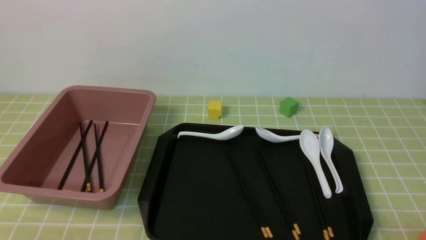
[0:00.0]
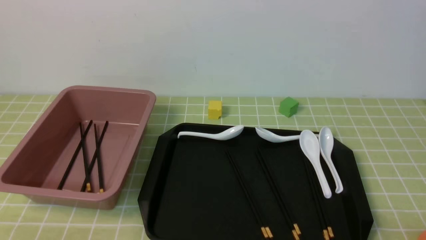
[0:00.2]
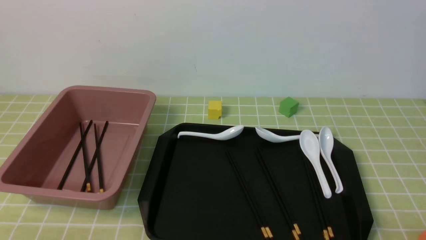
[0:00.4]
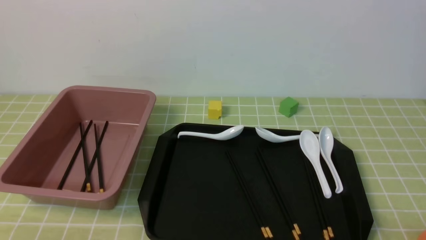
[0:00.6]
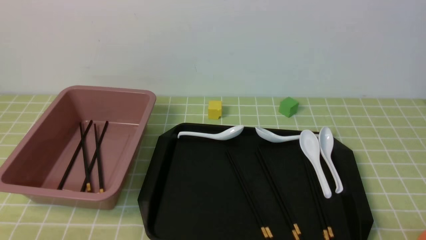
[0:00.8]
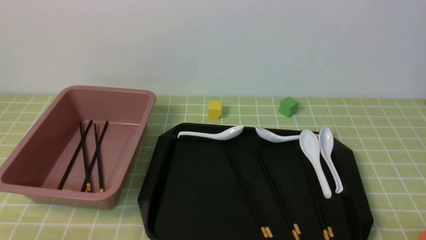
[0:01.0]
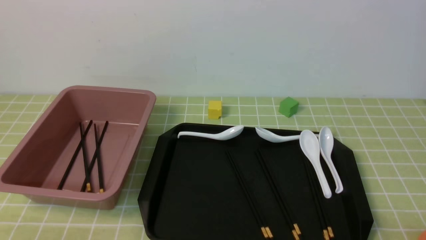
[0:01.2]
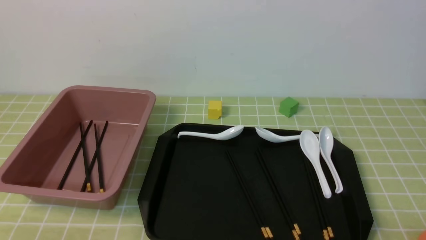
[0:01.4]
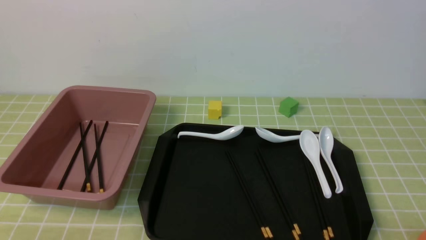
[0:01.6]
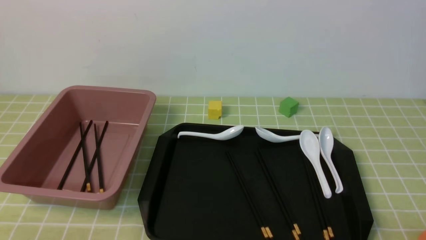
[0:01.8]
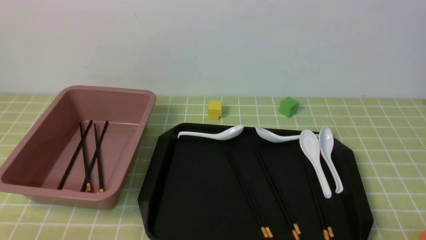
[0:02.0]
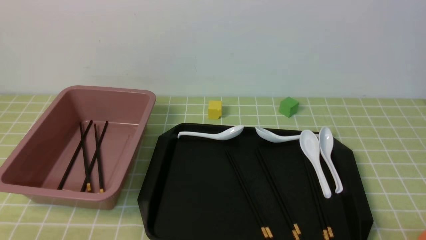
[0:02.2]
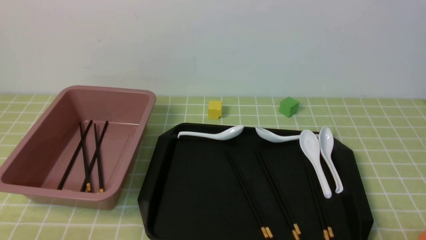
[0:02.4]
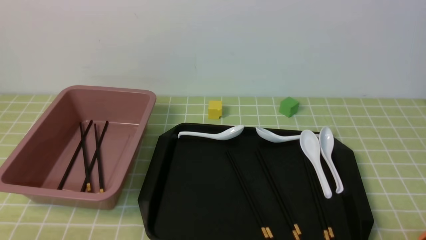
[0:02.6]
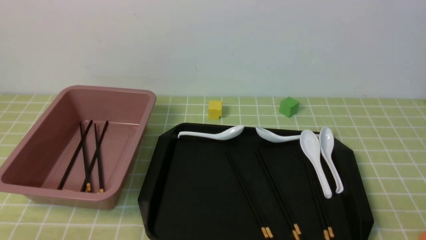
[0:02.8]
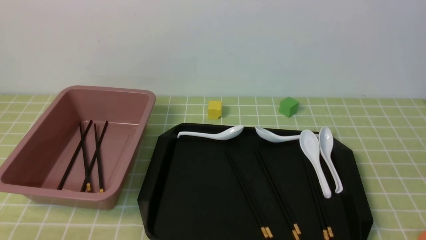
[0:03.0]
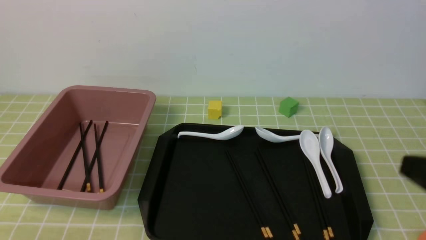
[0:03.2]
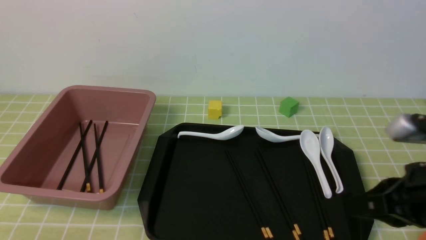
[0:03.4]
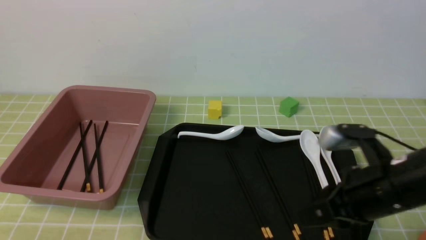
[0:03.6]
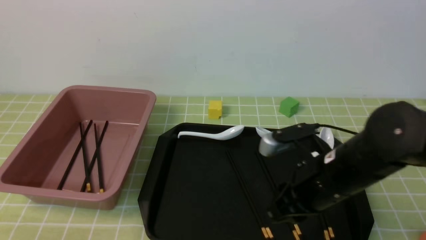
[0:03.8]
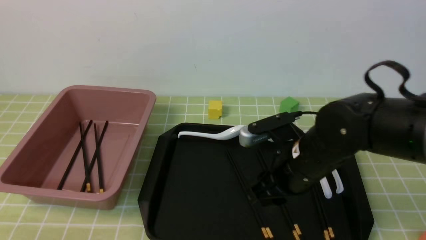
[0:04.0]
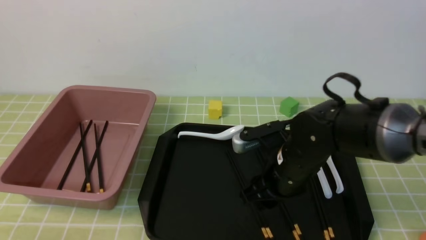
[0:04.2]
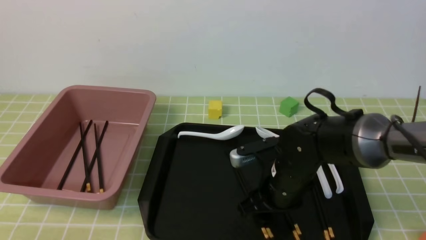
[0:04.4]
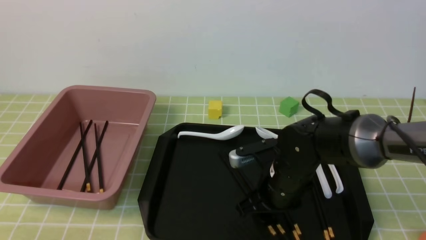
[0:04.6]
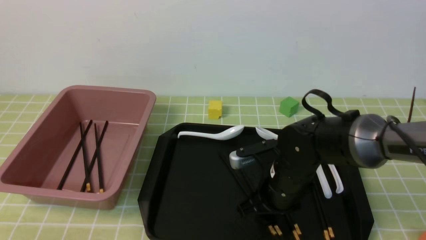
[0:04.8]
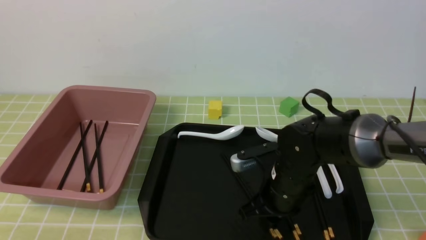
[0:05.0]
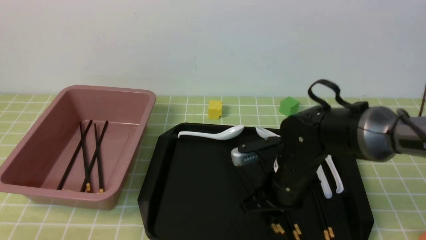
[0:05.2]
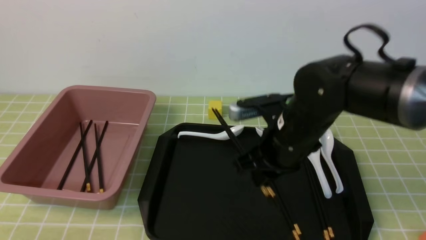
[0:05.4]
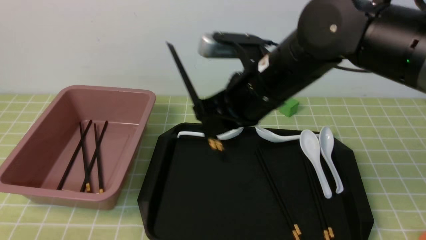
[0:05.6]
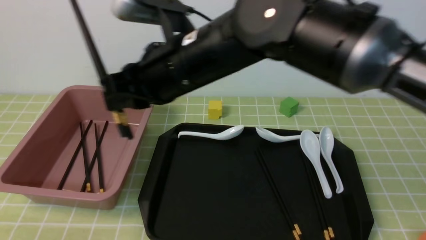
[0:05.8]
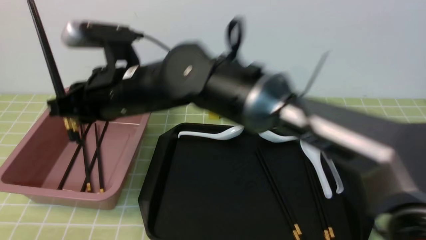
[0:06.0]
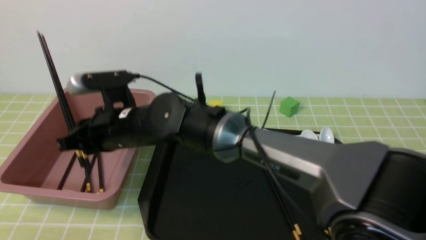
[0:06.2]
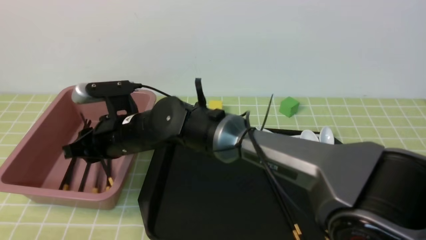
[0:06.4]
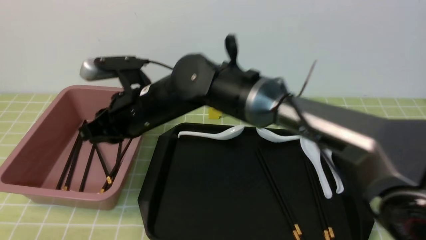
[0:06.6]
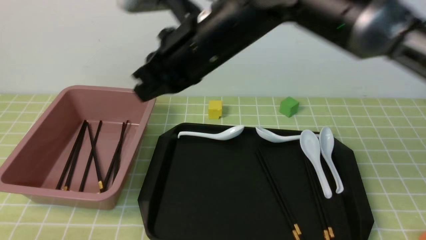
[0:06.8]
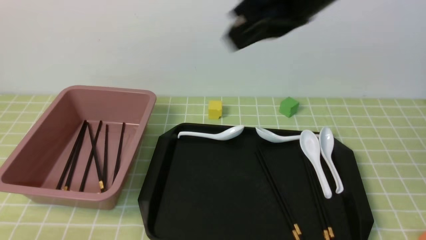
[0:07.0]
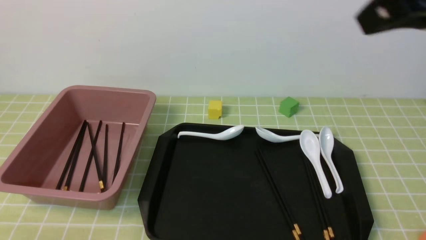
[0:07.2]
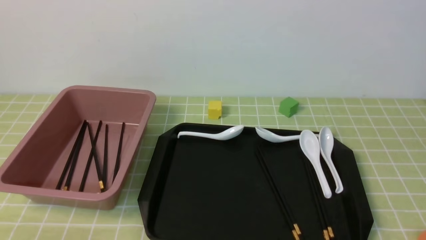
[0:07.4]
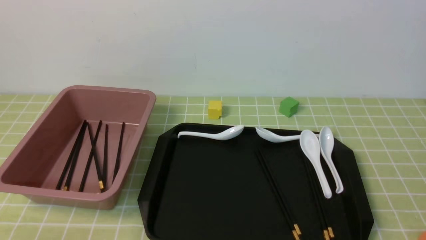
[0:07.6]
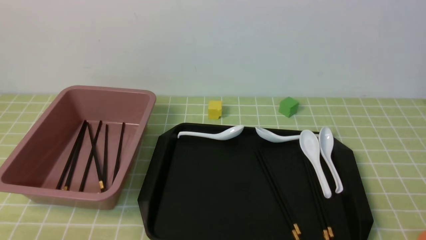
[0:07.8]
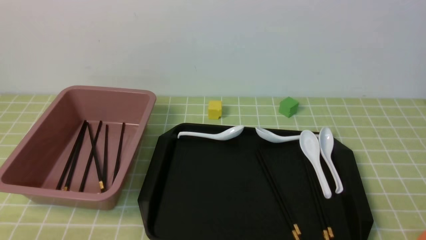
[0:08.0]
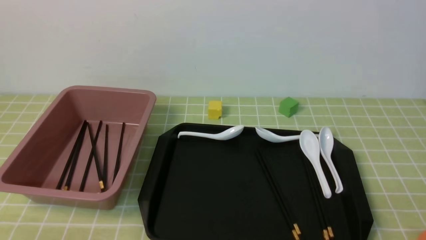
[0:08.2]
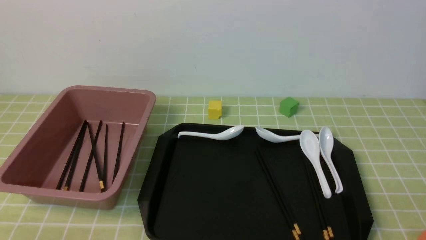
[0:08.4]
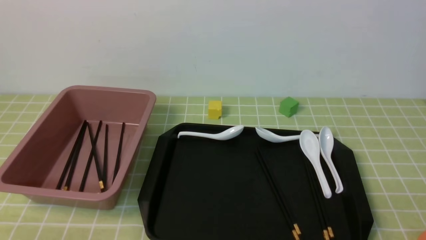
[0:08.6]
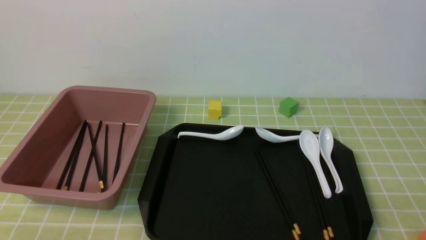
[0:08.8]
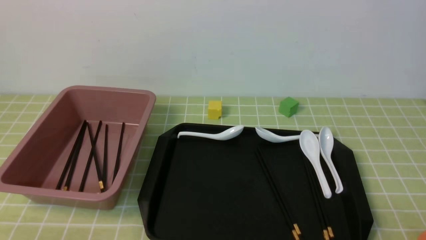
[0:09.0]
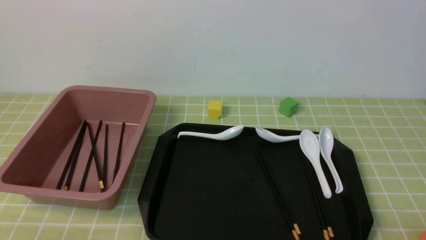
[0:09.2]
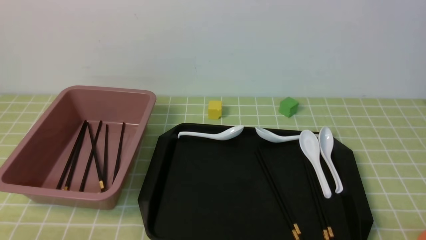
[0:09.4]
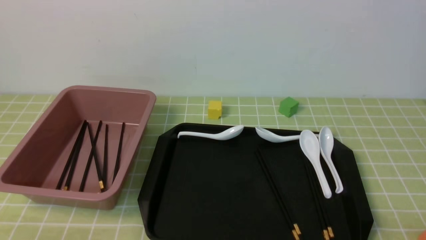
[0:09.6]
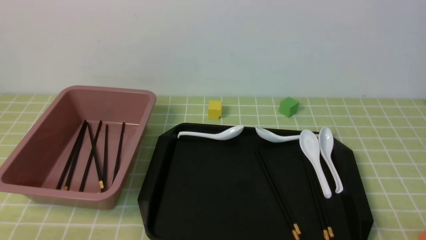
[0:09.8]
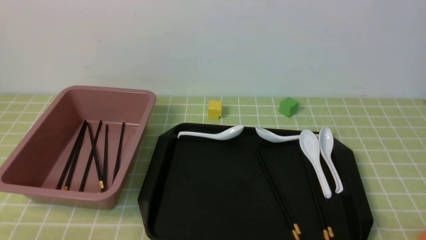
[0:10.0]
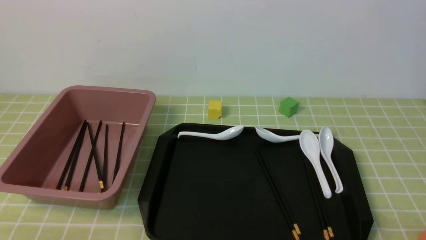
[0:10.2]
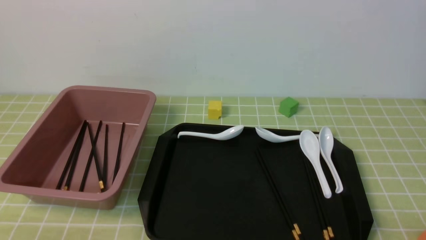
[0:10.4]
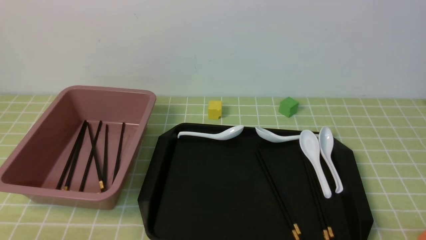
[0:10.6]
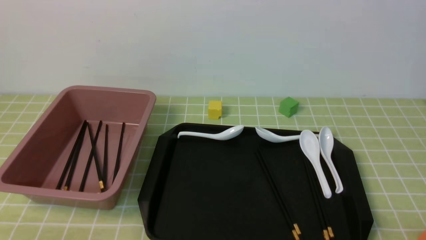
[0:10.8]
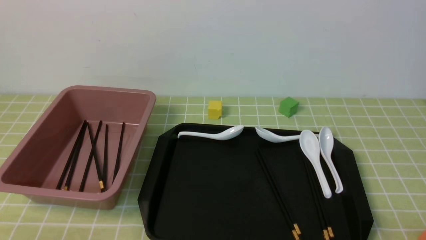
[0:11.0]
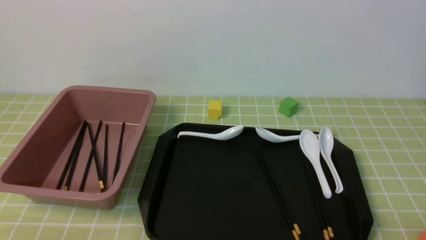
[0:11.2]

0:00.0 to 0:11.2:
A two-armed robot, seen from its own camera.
Step, 0:00.0 to 0:05.4: use the right arm to grab a pair of chopsticks.
Step, 0:05.6 to 0:06.6: use the right arm to put the chopsticks into the lunch box.
0:00.0 to 0:01.6: Neither gripper changes place.
0:01.6 to 0:03.2: The right gripper travels upward and forward by some 15 cm, and closes up.
0:03.2 to 0:04.8: The right gripper heads forward, to the left and downward, covering approximately 30 cm, and opens up.
0:04.8 to 0:06.4: The right gripper shifts about 25 cm to the left and upward.
0:06.4 to 0:08.0: The right gripper is displaced to the right and backward by approximately 50 cm, and closes.
0:09.6 to 0:11.2: Neither gripper changes place.

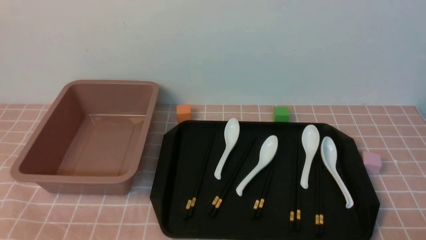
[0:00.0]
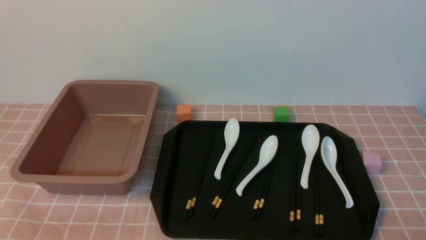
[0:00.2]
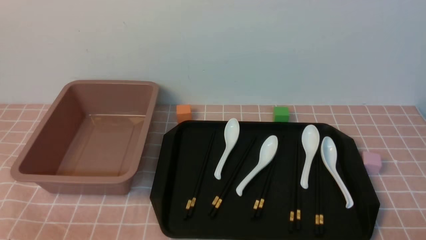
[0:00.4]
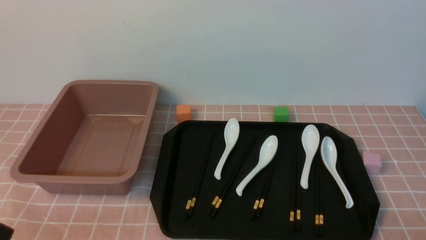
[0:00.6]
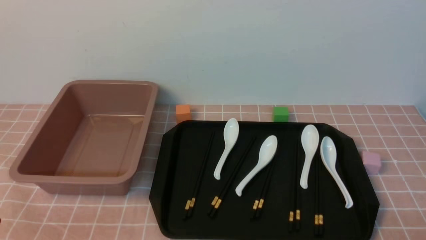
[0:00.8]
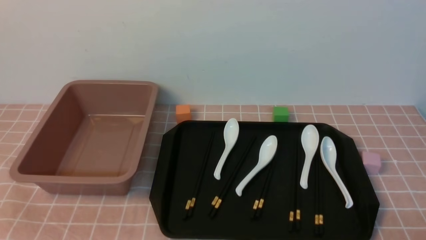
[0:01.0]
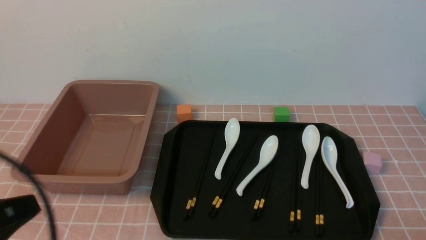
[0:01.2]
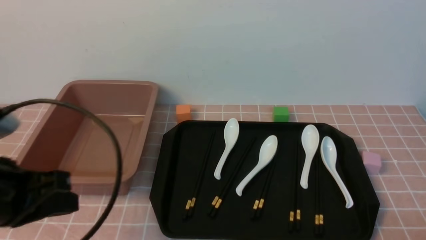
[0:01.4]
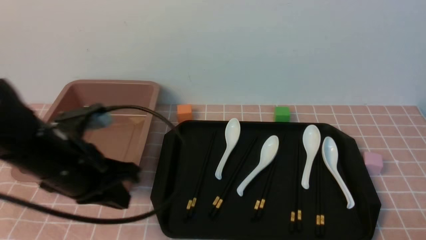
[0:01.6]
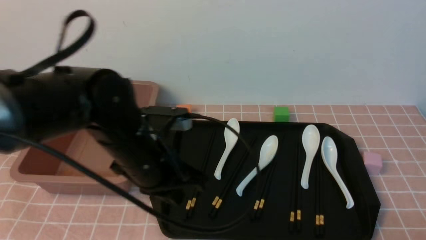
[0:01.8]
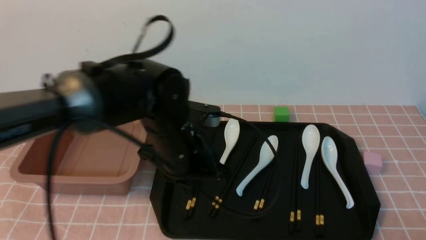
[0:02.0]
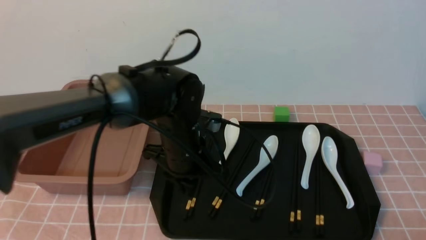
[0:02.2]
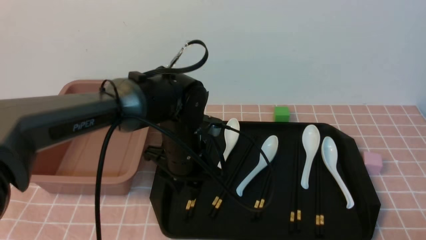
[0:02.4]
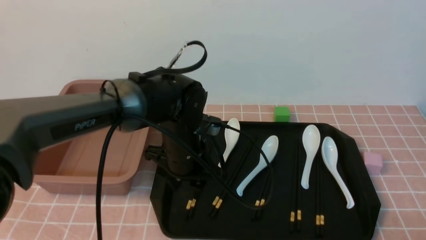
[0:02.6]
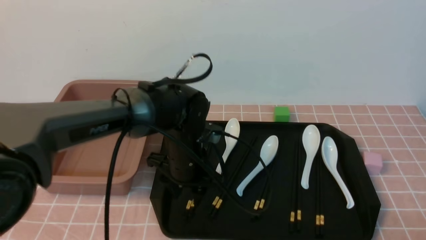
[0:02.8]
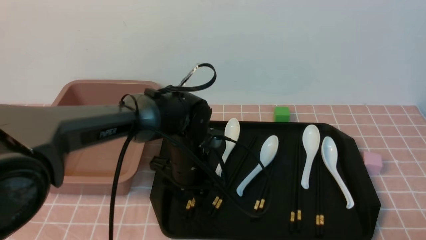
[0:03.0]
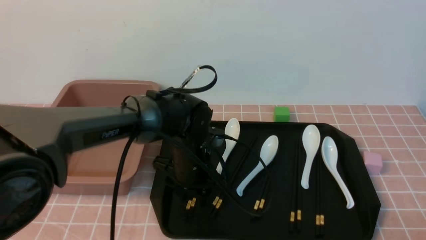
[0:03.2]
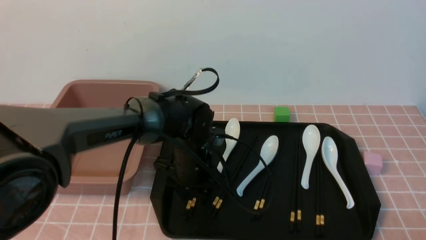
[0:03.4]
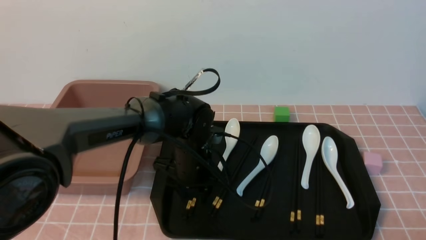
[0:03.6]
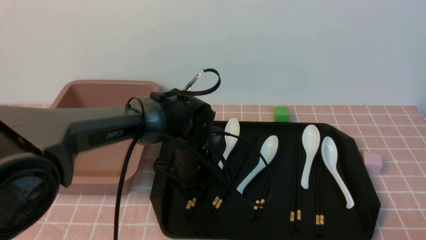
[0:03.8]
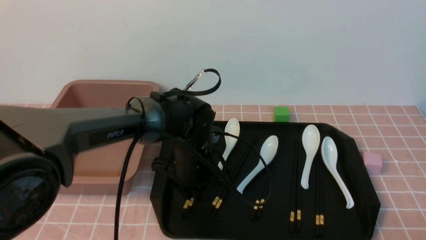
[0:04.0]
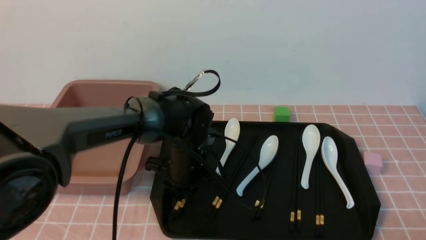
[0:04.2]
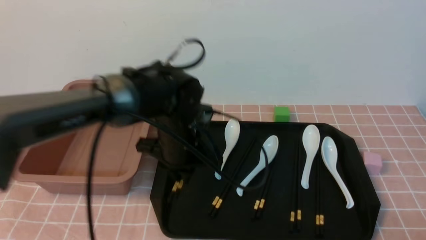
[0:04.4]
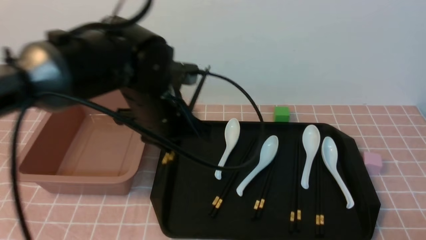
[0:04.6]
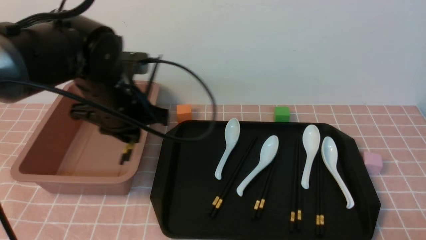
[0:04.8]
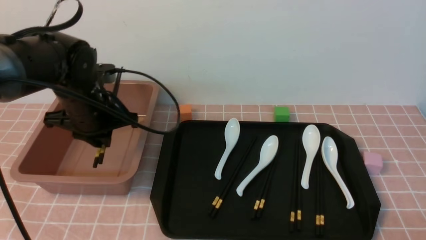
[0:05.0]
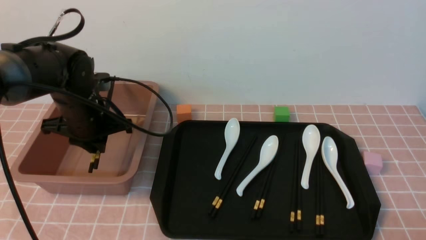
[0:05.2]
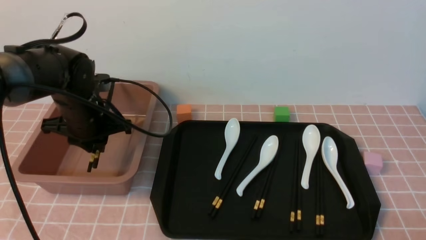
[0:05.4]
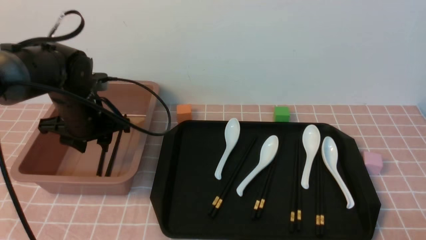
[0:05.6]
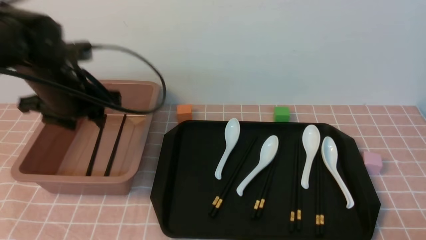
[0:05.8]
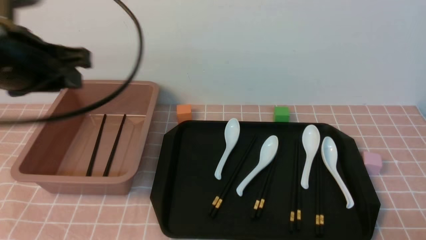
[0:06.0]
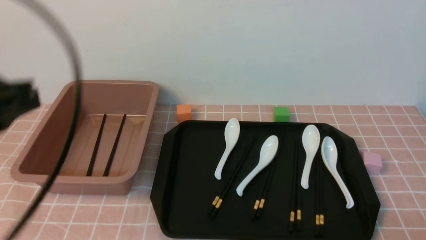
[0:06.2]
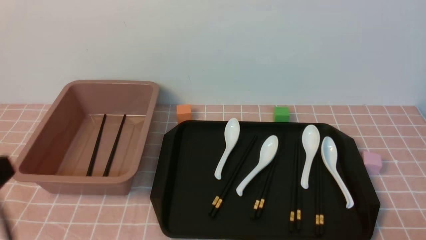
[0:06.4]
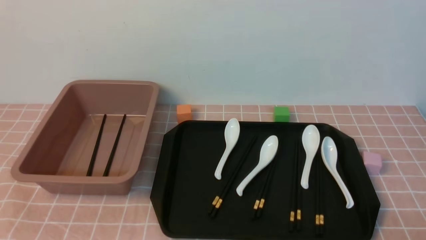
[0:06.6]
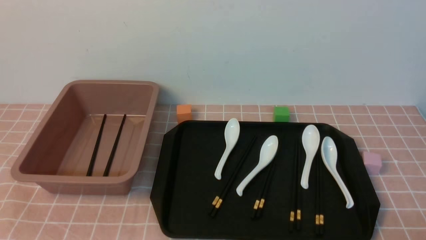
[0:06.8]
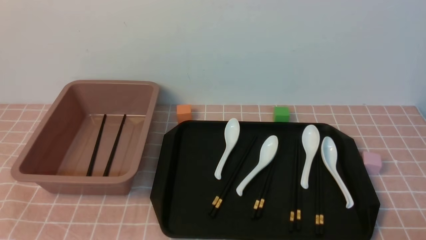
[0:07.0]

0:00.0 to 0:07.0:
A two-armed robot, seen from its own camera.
Step, 0:00.0 to 0:04.4: use the left arm to grab a pair of chopsticks.
Step, 0:04.6 to 0:05.8: use the left arm to put the chopsticks into the lunch box.
0:00.0 to 0:01.4: The left gripper is displaced upward and forward by about 20 cm, and closes its fingers.
0:01.4 to 0:02.8: The left gripper travels to the right, forward and downward by roughly 30 cm, and opens its fingers.
0:02.8 to 0:04.2: The left gripper closes up.
0:04.2 to 0:05.6: The left gripper moves to the left and upward, about 20 cm, and opens its fingers.
0:05.6 to 0:07.0: The left gripper moves backward, some 35 cm, and closes its fingers.
